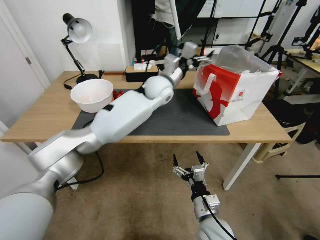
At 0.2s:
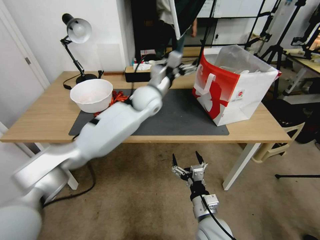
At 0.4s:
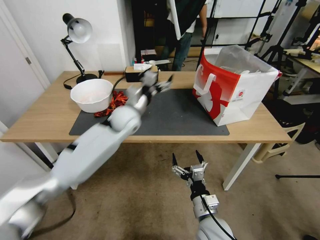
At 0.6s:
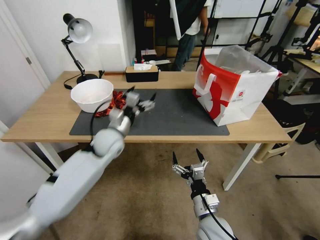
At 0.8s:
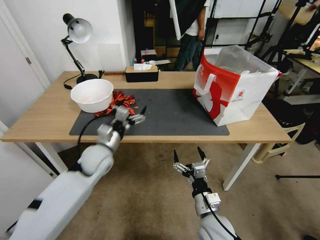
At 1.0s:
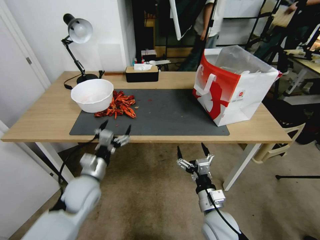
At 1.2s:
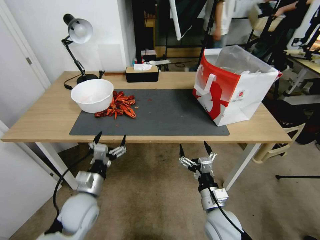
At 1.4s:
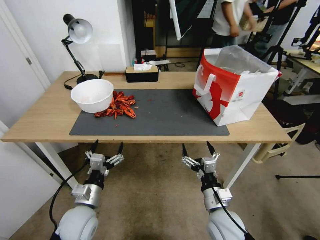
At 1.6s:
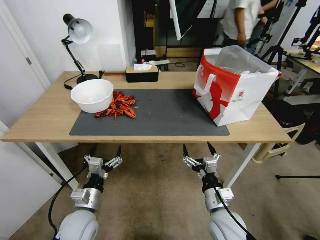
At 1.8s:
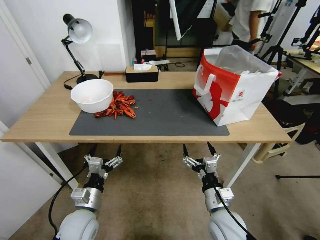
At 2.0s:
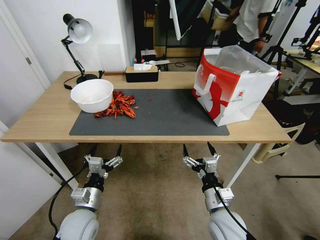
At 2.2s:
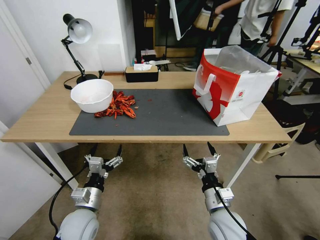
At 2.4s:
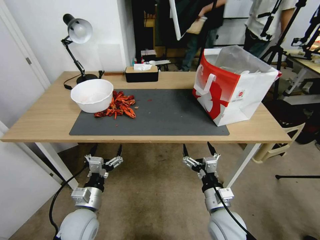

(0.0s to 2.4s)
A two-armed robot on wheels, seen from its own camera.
Task of the whole recording: Close the takeout container lid, then place the container into the takeout bag.
0.0s - 1.2s: The left gripper is displaced backward, to the left and downward by roughly 40 cm.
1.2s - 2.4s: The grippers make only small movements.

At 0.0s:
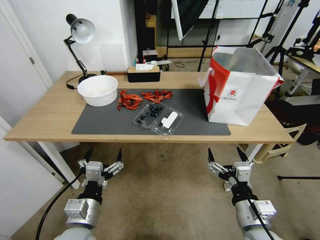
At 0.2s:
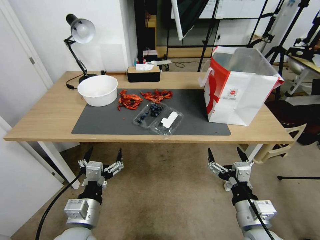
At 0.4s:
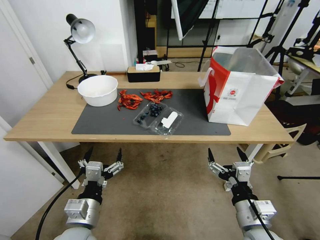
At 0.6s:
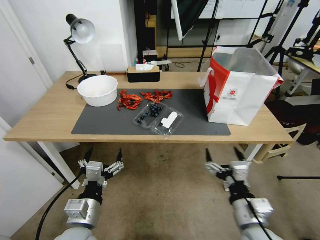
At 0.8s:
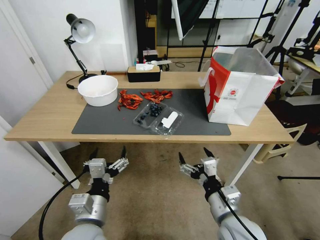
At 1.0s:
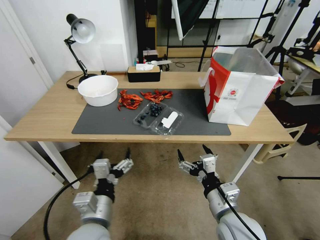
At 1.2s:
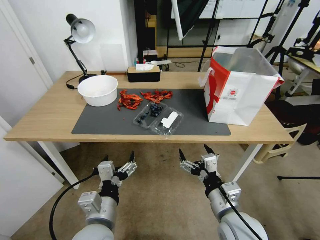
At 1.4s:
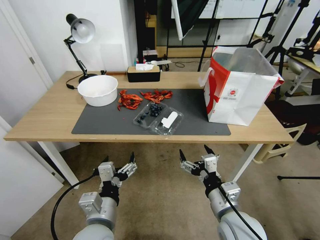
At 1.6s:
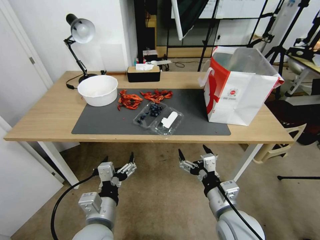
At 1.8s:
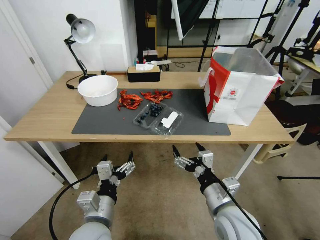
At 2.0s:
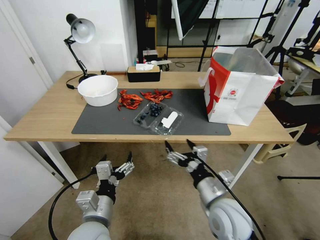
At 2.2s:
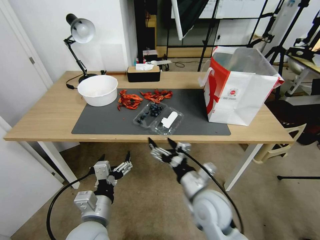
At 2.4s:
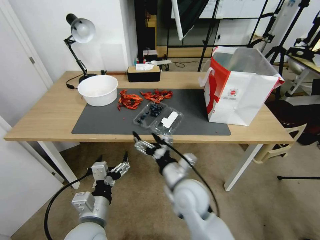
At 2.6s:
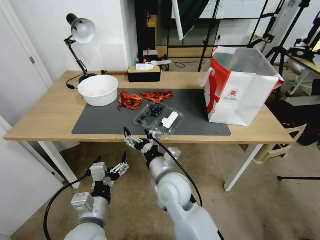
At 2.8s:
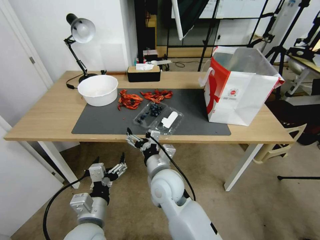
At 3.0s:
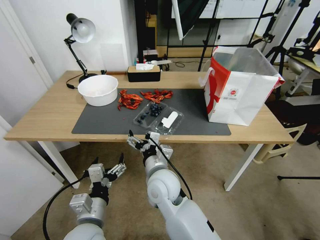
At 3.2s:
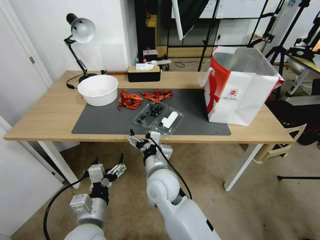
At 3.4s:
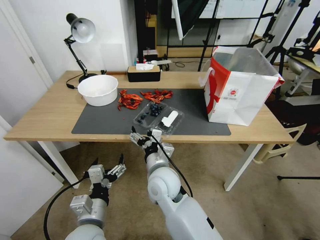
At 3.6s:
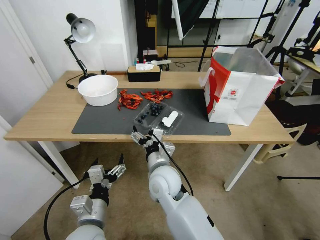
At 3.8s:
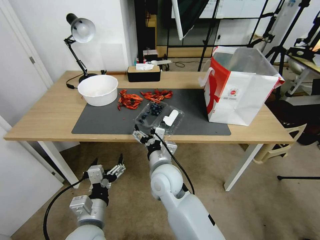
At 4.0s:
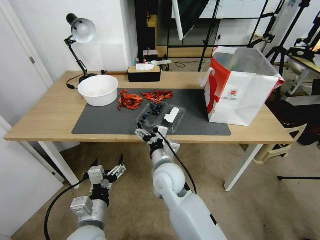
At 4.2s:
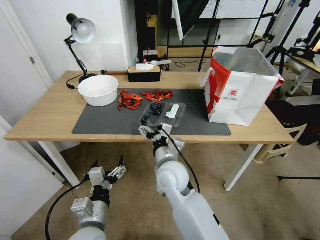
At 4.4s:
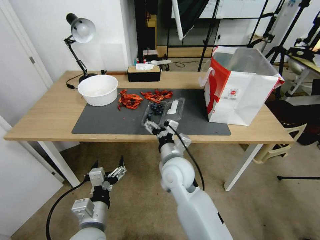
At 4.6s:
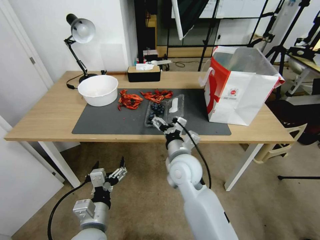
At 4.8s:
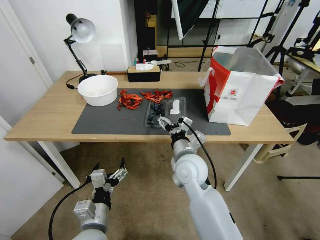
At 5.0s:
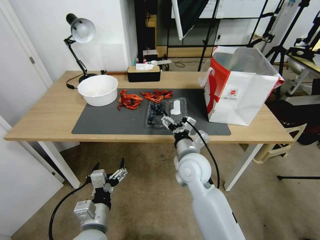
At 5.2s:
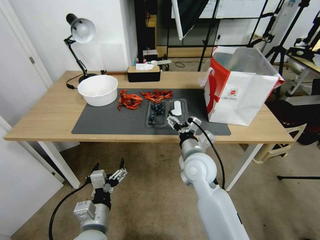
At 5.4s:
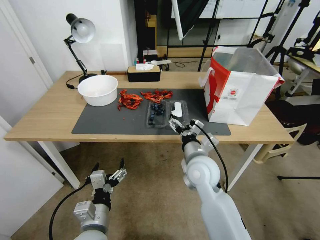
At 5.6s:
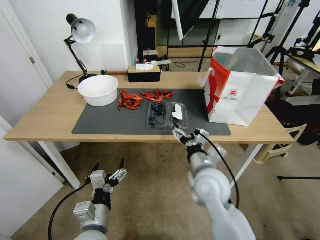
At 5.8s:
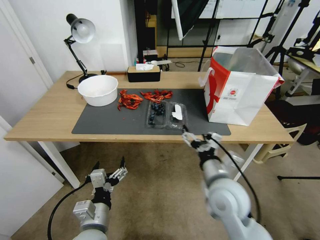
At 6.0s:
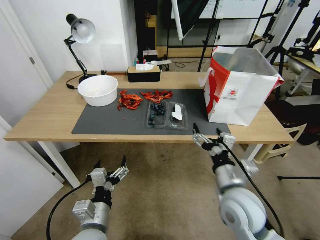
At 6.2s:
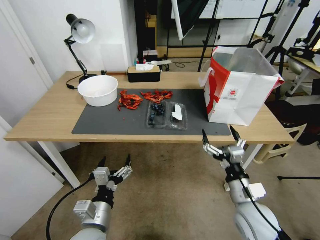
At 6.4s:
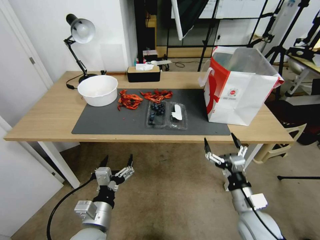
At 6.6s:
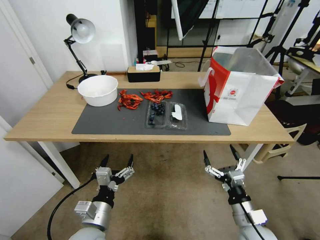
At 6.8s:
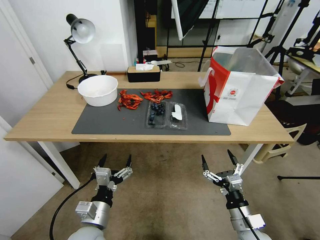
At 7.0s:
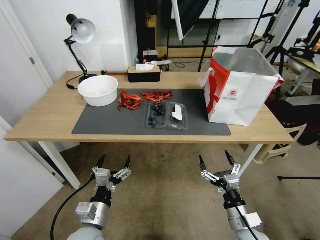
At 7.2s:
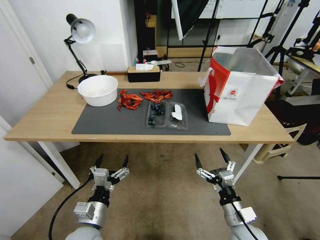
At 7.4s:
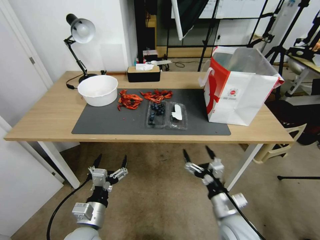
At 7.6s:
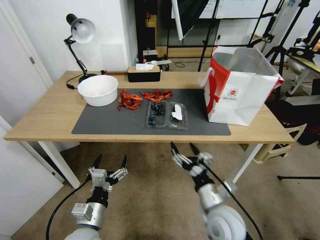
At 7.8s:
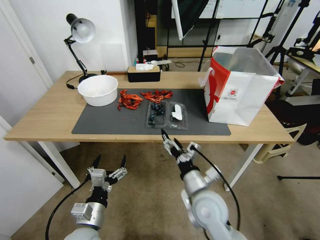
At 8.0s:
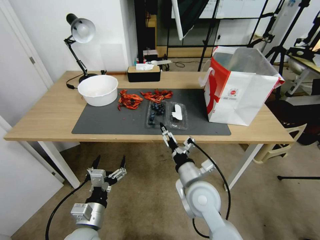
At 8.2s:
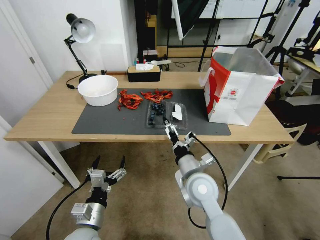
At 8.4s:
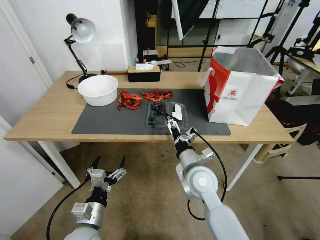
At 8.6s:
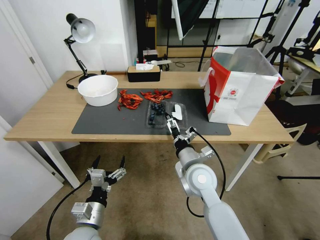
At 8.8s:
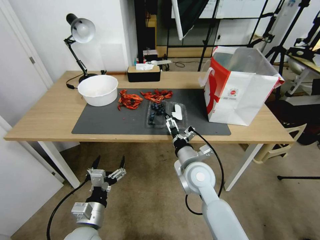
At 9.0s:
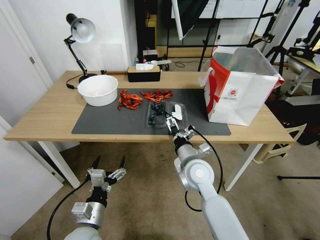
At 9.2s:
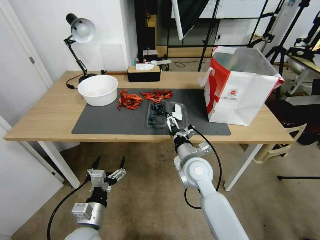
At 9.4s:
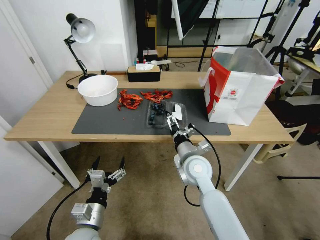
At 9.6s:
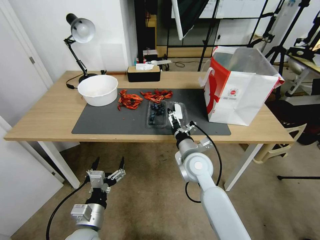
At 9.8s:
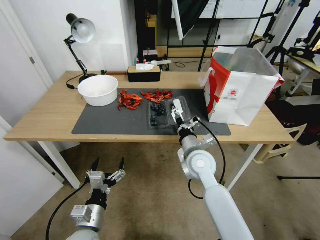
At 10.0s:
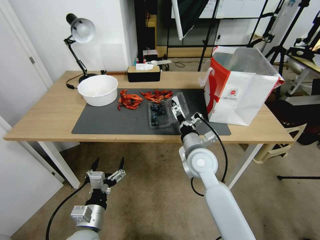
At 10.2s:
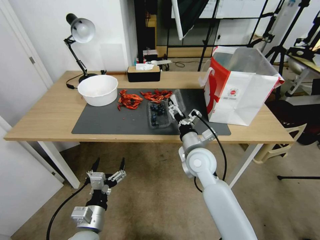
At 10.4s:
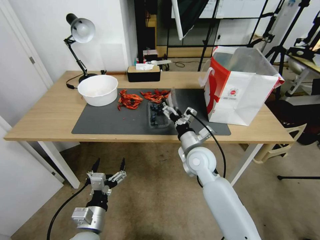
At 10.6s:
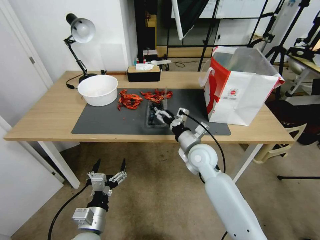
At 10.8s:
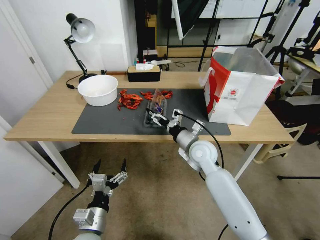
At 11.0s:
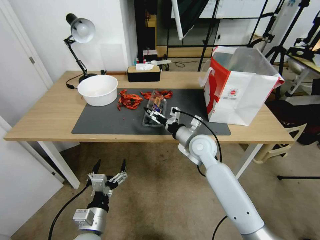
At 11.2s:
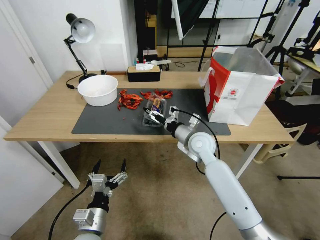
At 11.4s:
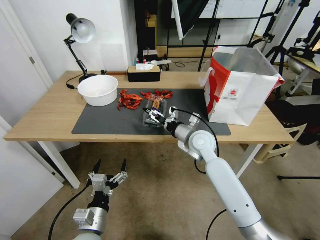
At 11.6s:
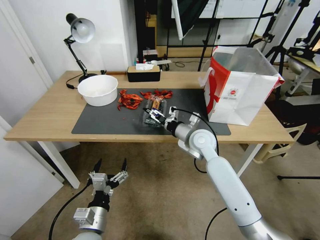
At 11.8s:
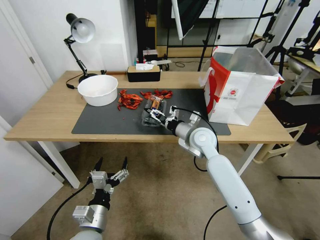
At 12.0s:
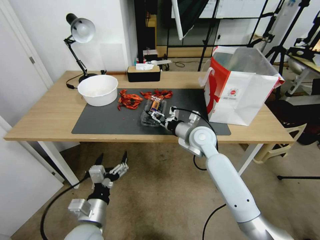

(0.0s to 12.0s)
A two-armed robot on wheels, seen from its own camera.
Task of the whole recording: Close the takeout container lid, then place the container into the takeout bag.
1.6s - 3.0s: The right gripper is displaced to the left and forward by approximately 20 cm.
3.0s - 4.4s: The right gripper changes place by roughly 5 cm.
4.4s - 6.0s: The right gripper moves to the right and backward, approximately 20 cm.
6.0s - 7.6s: The right gripper moves downward, about 10 cm.
7.6s - 9.0s: The right gripper shifts some 15 cm forward and to the left.
9.0s - 10.4s: The right gripper changes place by about 5 cm.
10.4s - 12.0s: The right gripper heads forward, covering approximately 5 cm, and closes.

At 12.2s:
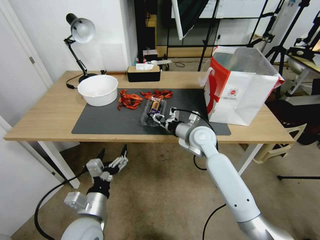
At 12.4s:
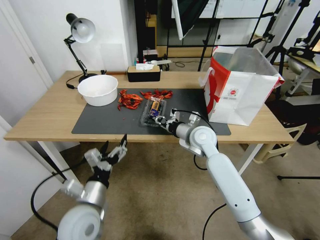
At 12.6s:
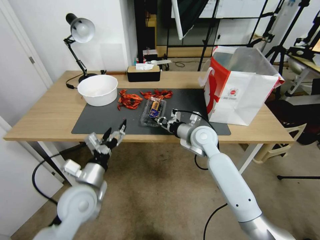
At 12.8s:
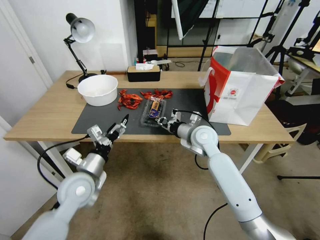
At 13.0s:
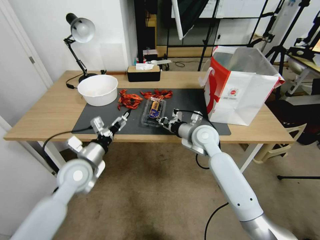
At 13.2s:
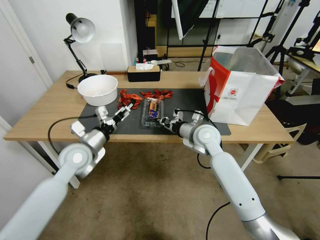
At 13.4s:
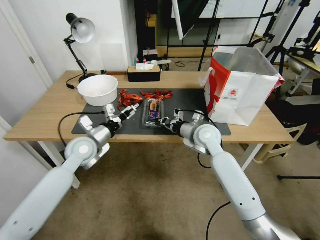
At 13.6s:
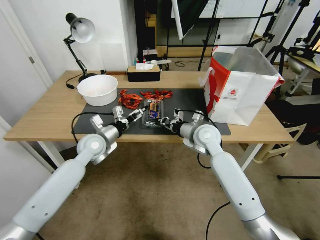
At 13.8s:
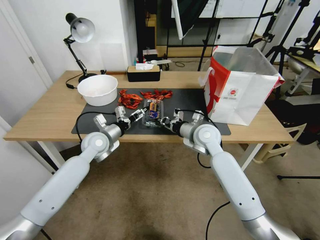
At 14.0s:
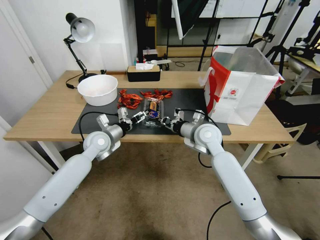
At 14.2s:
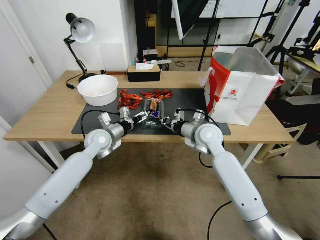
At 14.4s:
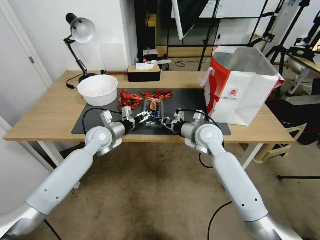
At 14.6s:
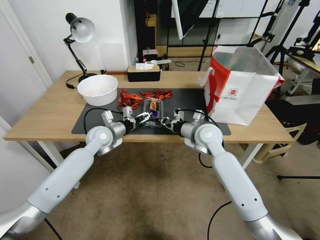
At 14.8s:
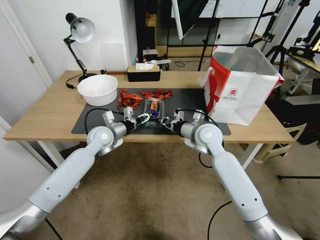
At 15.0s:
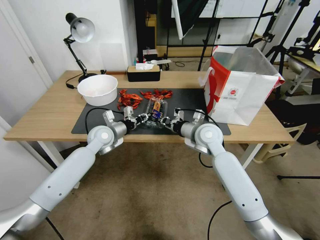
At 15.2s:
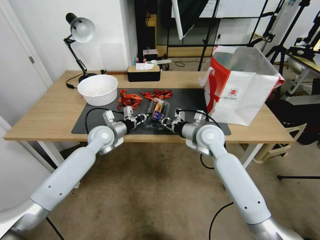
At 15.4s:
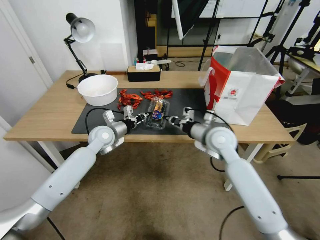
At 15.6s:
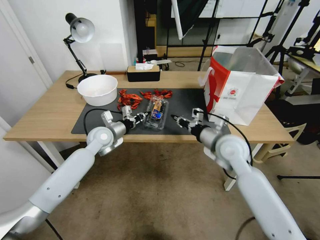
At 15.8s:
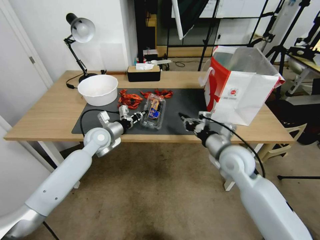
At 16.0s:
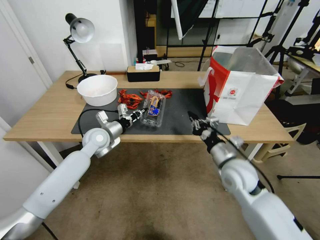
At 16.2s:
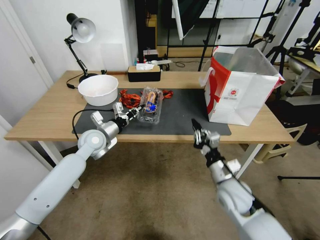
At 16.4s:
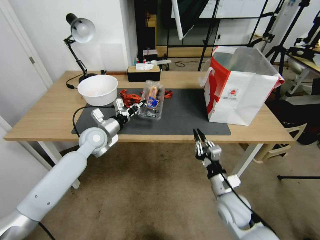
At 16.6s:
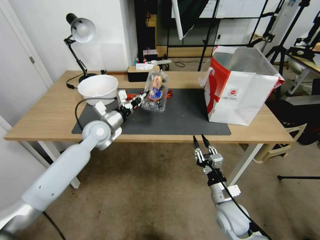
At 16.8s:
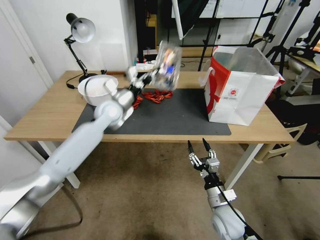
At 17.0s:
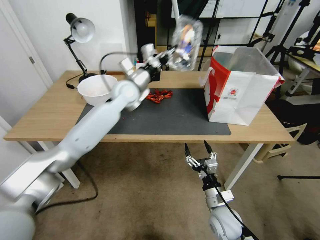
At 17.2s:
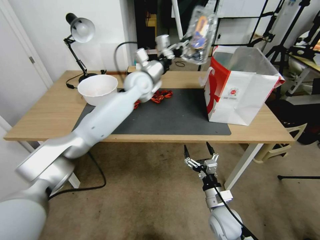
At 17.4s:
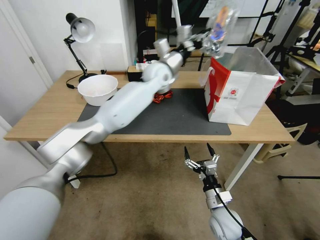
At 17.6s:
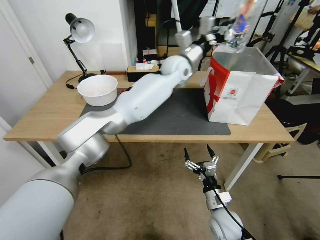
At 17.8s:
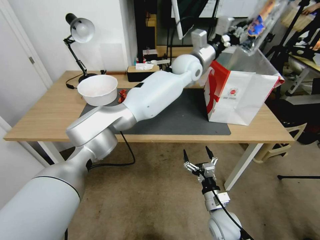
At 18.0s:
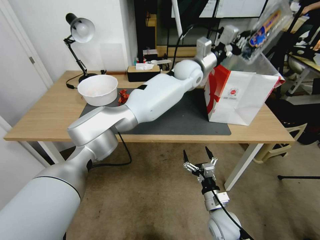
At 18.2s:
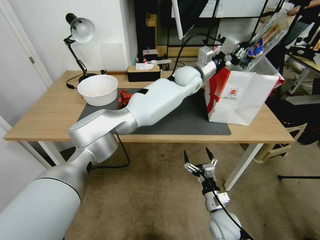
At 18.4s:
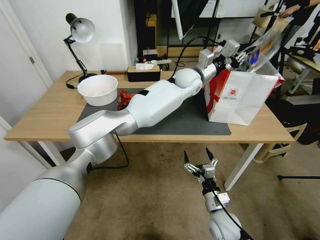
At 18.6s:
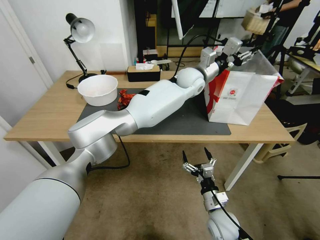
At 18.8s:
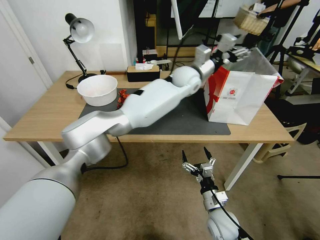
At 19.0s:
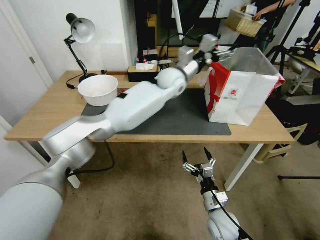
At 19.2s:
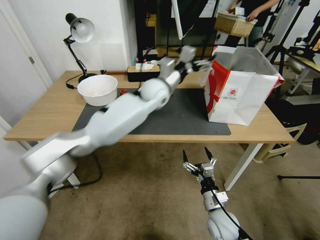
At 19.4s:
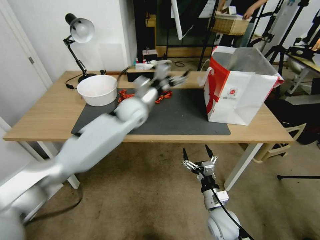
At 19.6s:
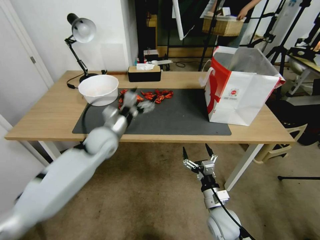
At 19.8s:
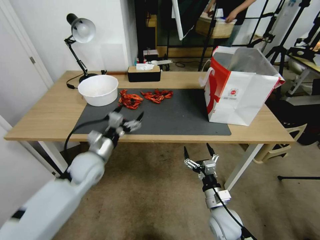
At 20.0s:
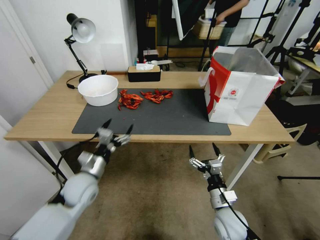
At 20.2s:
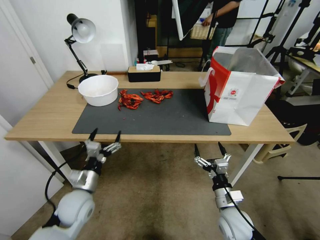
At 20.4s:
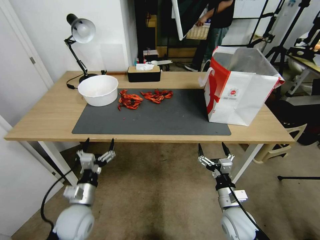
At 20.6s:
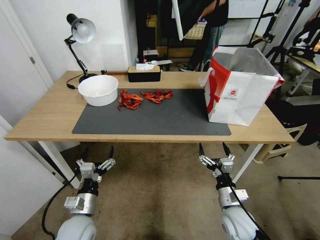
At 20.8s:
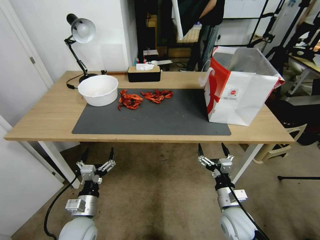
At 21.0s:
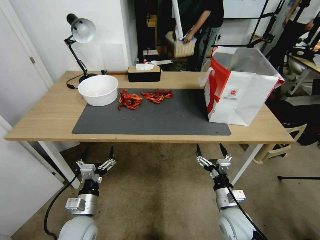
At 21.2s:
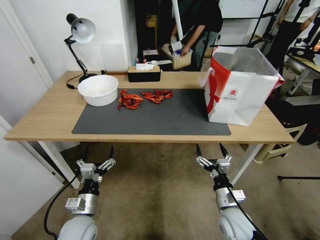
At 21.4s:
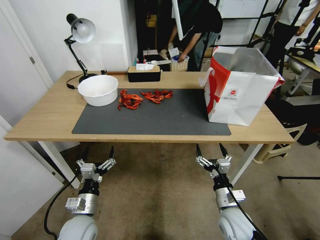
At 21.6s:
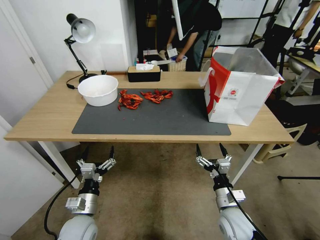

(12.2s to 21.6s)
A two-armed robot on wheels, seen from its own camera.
Task of the whole recording: Close the takeout container lid, then place the container into the takeout bag.
12.2s - 13.8s: The right gripper closes up, while the left gripper travels forward by about 25 cm.
13.8s - 15.4s: The left gripper closes up.
15.4s - 17.0s: The left gripper is displaced upward, to the right and forward by about 20 cm; the right gripper shifts about 30 cm backward and downward, and opens.
17.0s - 18.4s: The left gripper travels to the right by approximately 25 cm.
18.4s - 20.0s: The left gripper shifts some 50 cm to the left, backward and downward, and opens up.
20.0s - 21.6s: The left gripper shifts approximately 10 cm backward and downward.
